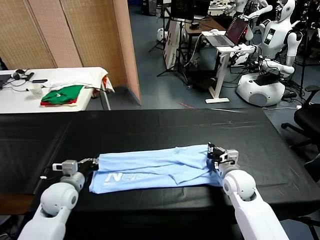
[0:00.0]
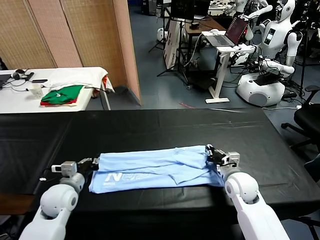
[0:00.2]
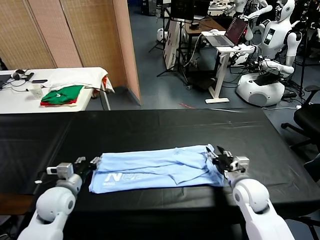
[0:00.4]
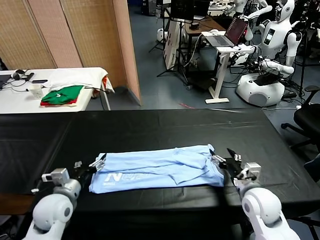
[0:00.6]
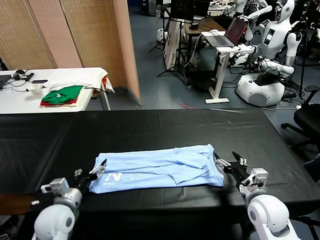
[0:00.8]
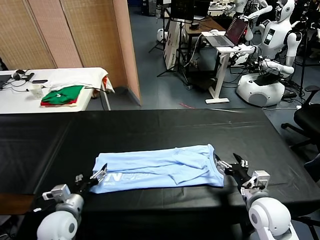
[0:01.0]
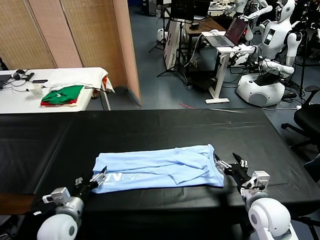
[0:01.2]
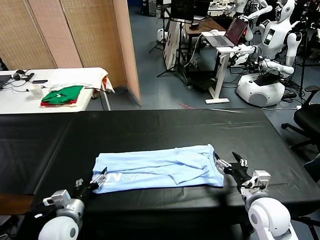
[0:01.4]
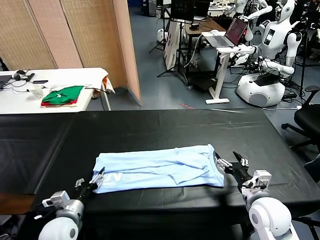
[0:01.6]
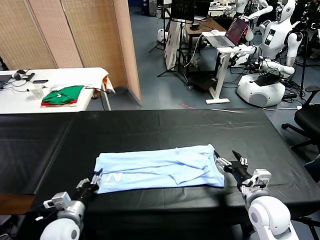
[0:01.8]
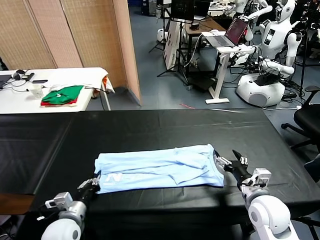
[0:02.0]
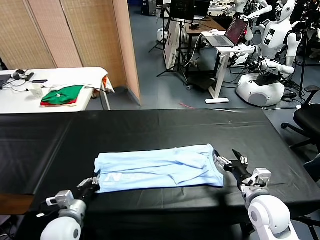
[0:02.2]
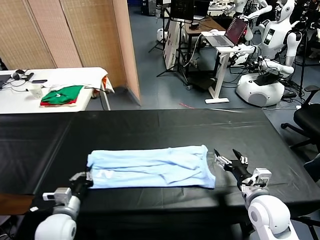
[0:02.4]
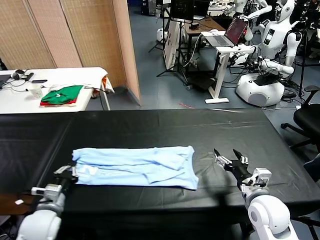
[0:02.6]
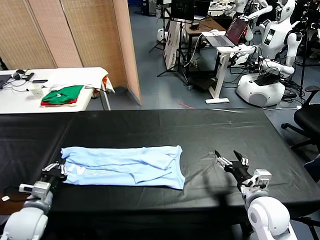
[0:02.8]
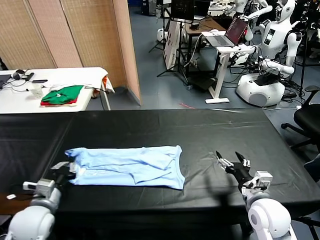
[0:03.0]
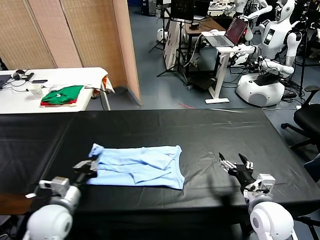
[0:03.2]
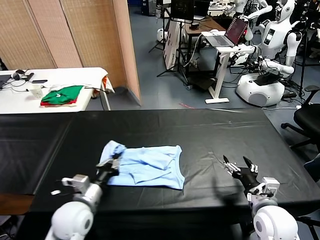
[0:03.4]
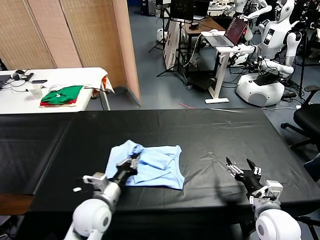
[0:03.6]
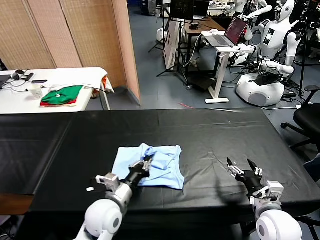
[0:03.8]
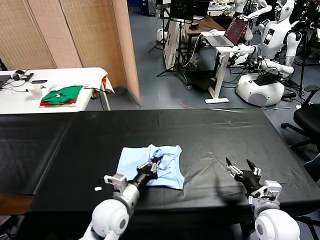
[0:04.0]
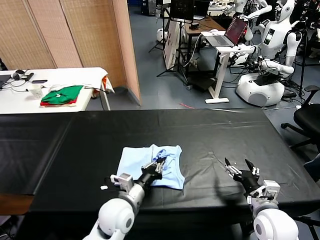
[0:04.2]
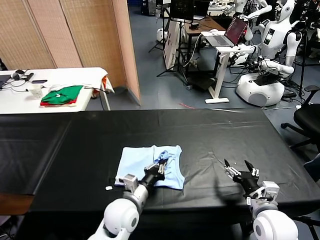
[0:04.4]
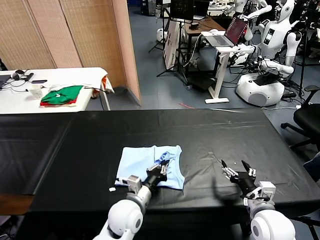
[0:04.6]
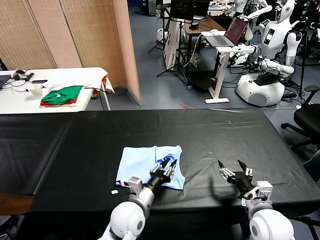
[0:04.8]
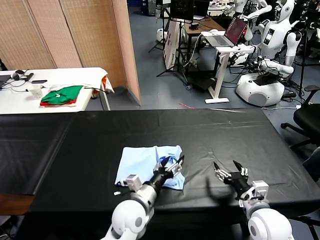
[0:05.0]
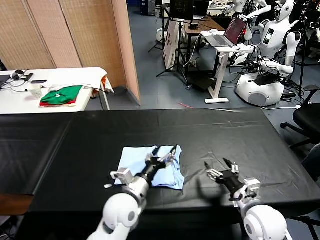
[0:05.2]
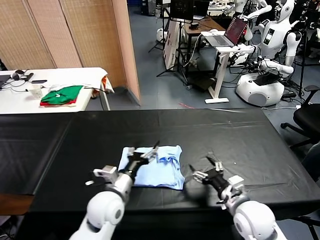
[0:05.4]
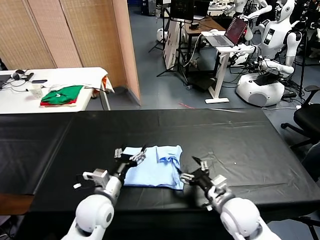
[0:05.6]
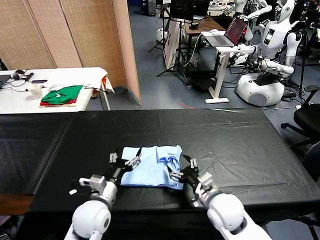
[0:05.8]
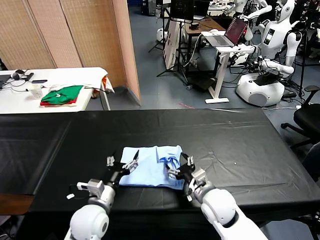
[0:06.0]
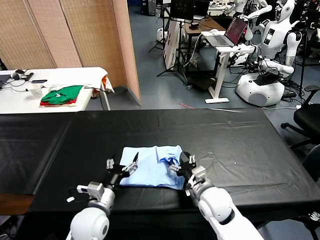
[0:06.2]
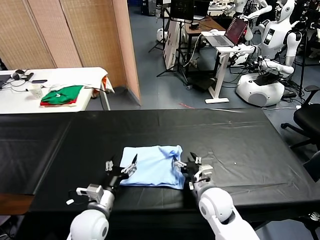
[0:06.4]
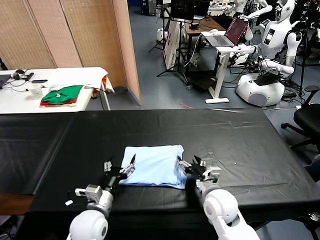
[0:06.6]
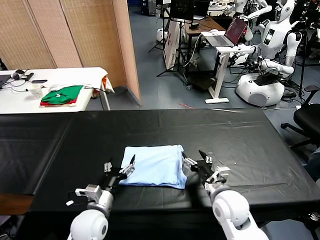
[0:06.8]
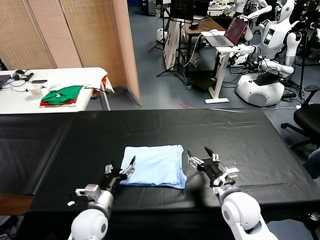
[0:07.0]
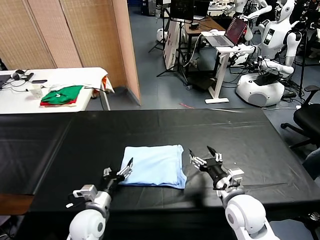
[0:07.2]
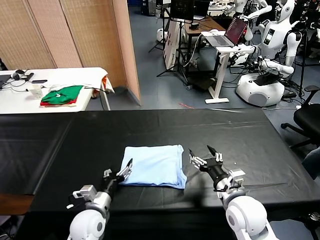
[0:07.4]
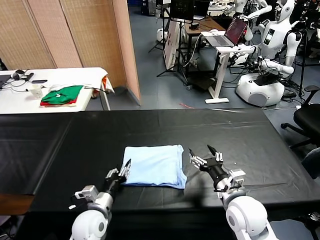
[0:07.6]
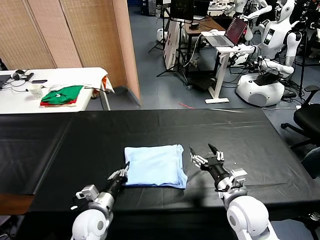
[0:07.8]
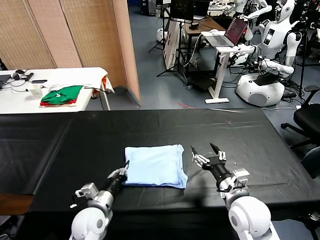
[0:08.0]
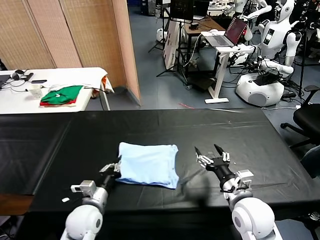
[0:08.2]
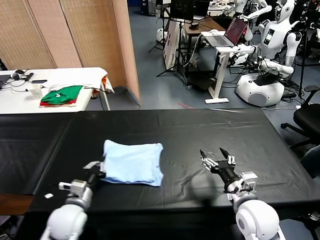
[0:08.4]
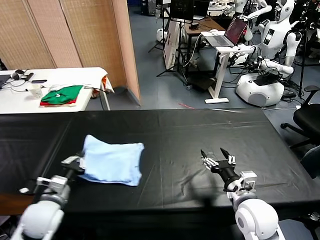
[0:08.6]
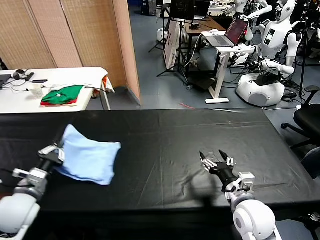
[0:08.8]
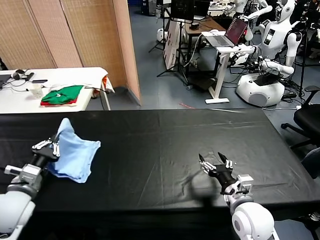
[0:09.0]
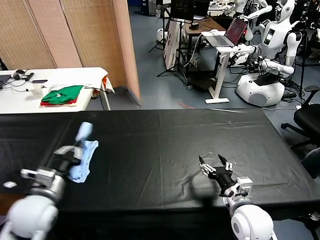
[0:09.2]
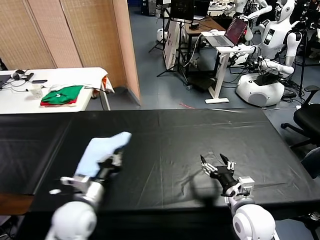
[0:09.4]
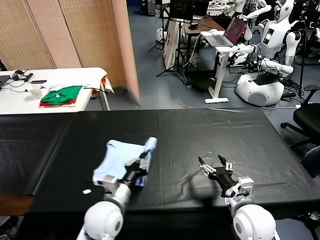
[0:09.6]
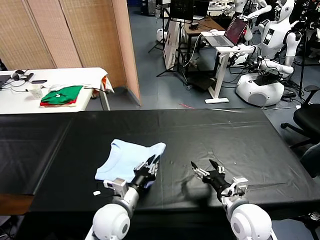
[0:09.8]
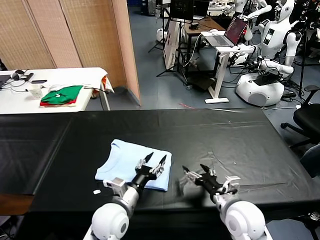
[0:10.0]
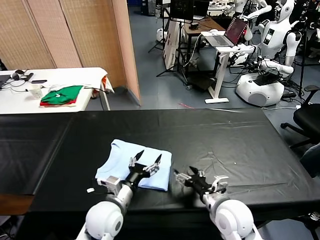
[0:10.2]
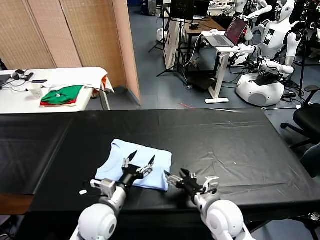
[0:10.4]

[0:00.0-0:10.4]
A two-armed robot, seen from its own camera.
Task of the whole recording: fold and organize the clothes.
Step, 0:00.0 to 0:01.8: use the left gripper to clamp the left edge of the fabric.
Step, 0:02.0 to 0:04.8: use the left gripper to drag the left edge of the fabric to the left and folds it over the right edge.
Step, 0:05.0 to 0:09.8: Flip the folded clothes over with left gripper.
0:00.0 to 0:01.4: Both grippers move backward, approximately 10 cm. The left gripper opens. The right gripper opens.
0:01.4 to 0:03.0: The left gripper travels to the left by about 5 cm, and closes up.
0:03.0 to 0:04.4: The left gripper goes some 25 cm to the right.
0:04.4 to 0:06.0: The right gripper shifts approximately 15 cm to the left and forward. Meanwhile the left gripper moves to the left, some 10 cm, and opens up.
0:06.0 to 0:07.4: The right gripper heads to the right, covering some 5 cm, while the left gripper shifts approximately 5 cm downward.
0:07.4 to 0:09.0: The left gripper shifts approximately 20 cm to the left and upward, and closes its fingers.
0:09.0 to 0:10.4: The left gripper heads to the right, covering about 20 cm, and opens its fingers, while the right gripper travels to the left by approximately 5 cm.

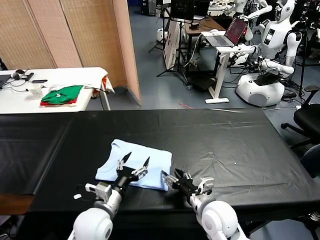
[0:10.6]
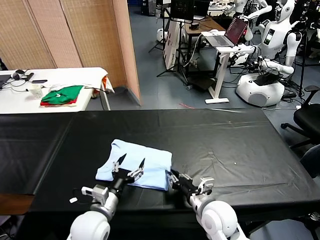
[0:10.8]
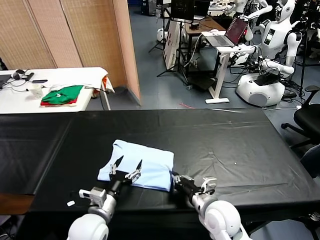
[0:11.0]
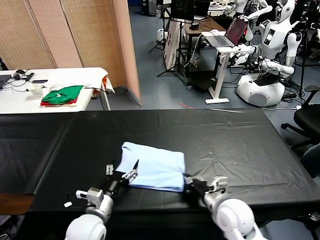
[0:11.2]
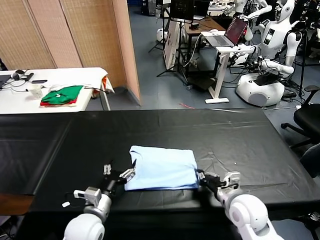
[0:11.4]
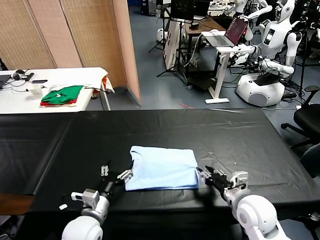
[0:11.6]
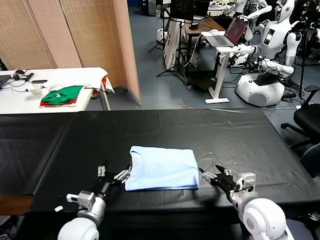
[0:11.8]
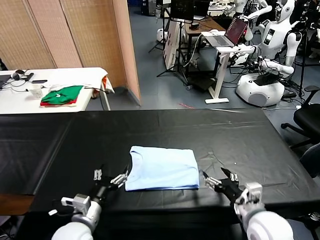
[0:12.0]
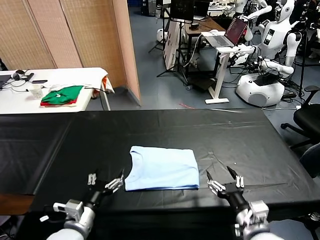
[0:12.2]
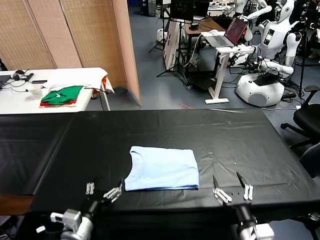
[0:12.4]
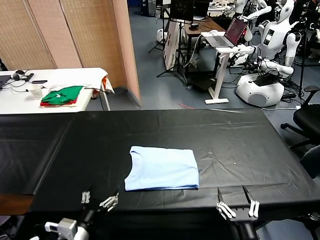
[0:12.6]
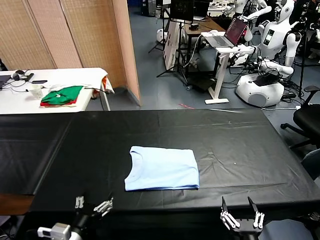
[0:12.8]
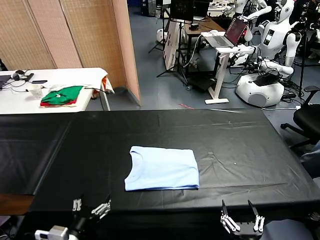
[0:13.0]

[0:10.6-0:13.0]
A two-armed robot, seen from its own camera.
Task of the whole recording: fold and organize the clothes.
Step, 0:10.6 to 0:11.6: Drag the clothes to the center of the table.
0:10.6 to 0:11.8: The right gripper shifts roughly 10 cm to the right, and closes, then opens again.
0:11.8 to 0:13.0: The left gripper heads backward, covering roughly 10 cm; the right gripper shifts some 20 cm backward.
